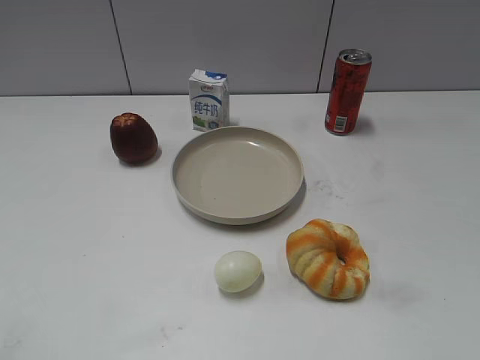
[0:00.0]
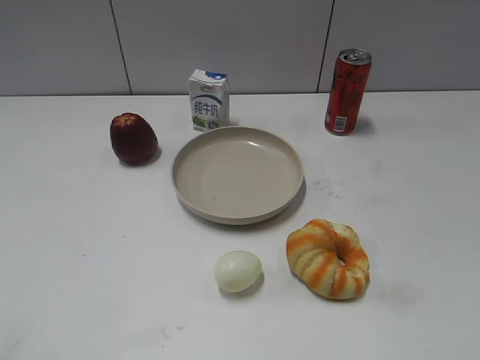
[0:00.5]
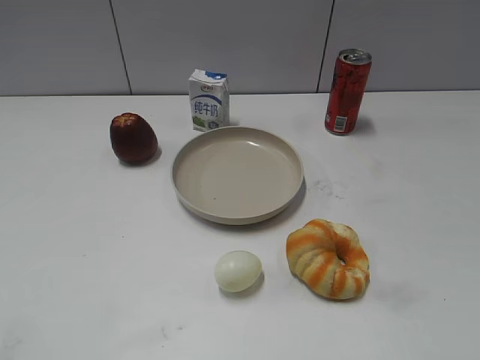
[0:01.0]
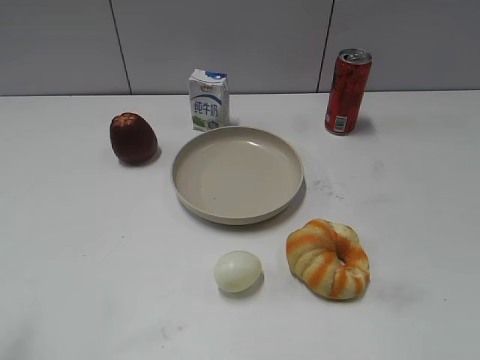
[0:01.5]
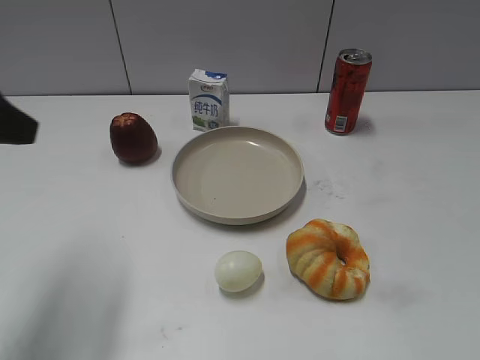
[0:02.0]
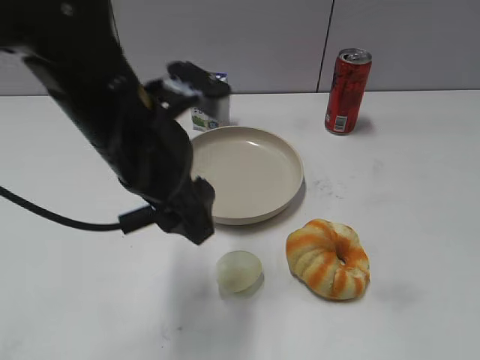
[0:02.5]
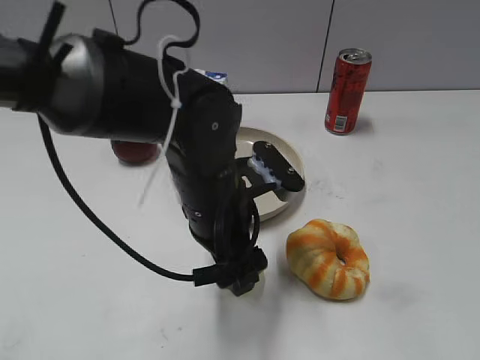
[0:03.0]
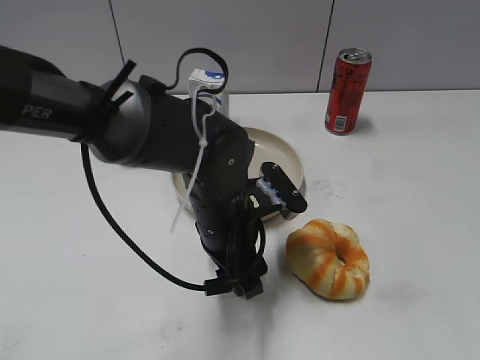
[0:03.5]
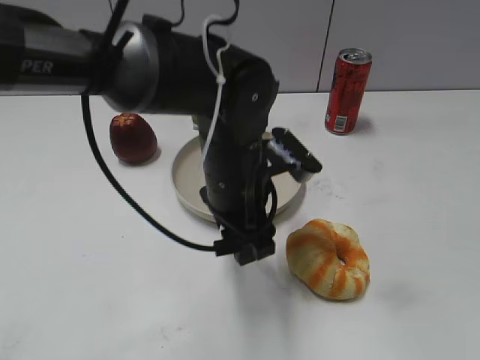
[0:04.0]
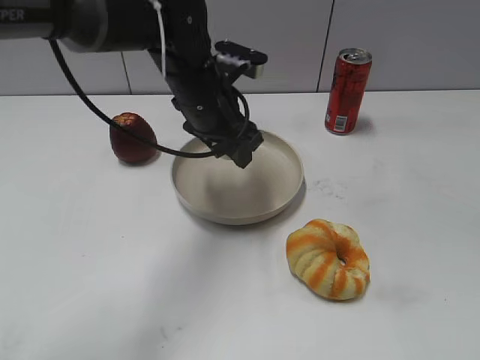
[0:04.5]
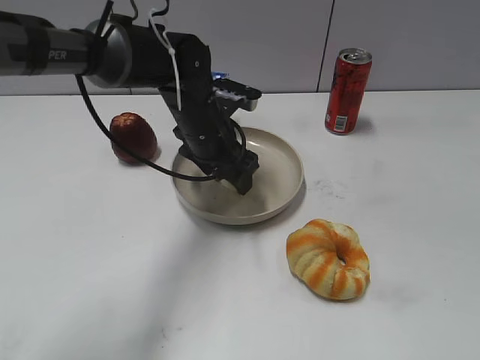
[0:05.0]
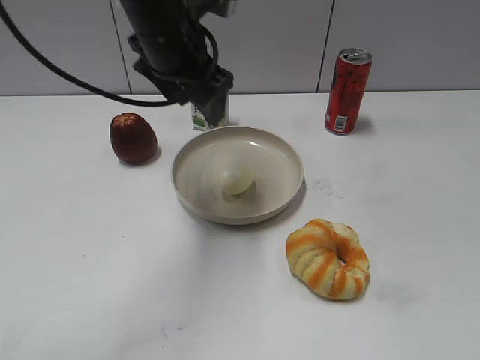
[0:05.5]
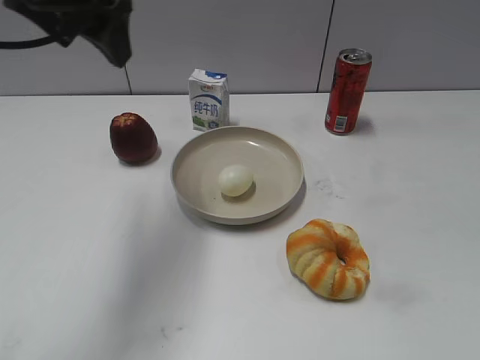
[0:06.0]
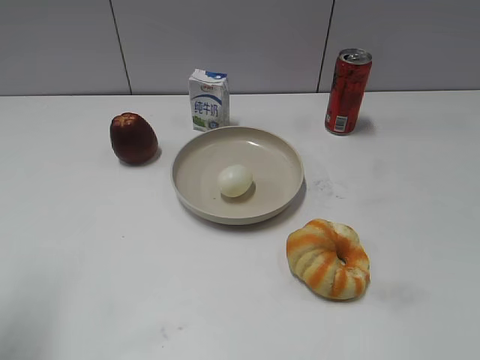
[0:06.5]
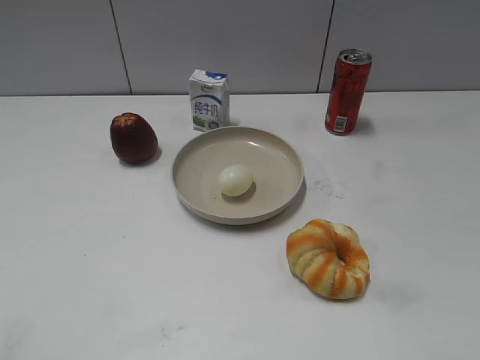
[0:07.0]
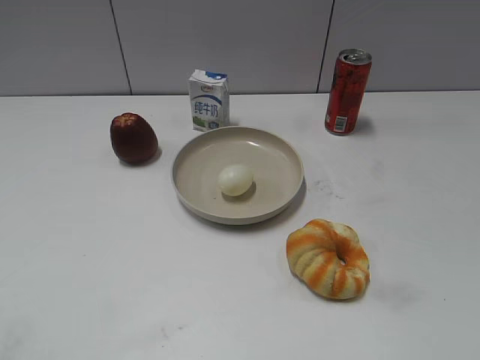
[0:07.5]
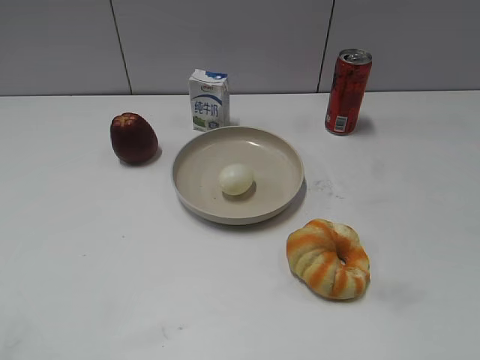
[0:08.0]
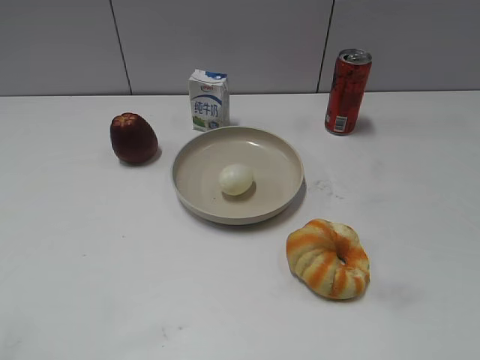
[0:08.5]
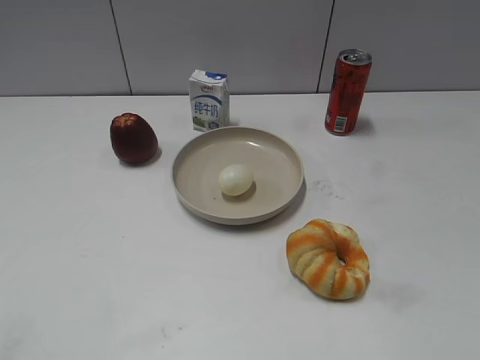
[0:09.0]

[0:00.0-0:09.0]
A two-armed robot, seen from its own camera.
0:02.0 to 0:04.5: The left gripper is displaced to the right and forward by some 30 cm, and closes up.
0:04.5 to 0:07.0: The left gripper is displaced to the left and backward by approximately 40 cm, and opens up.

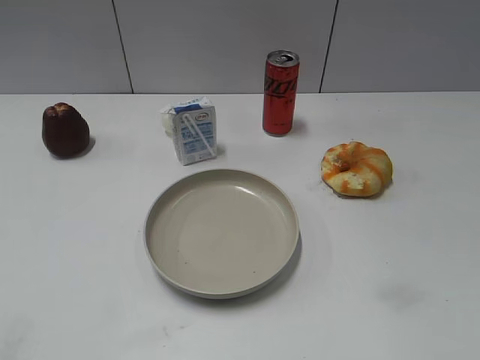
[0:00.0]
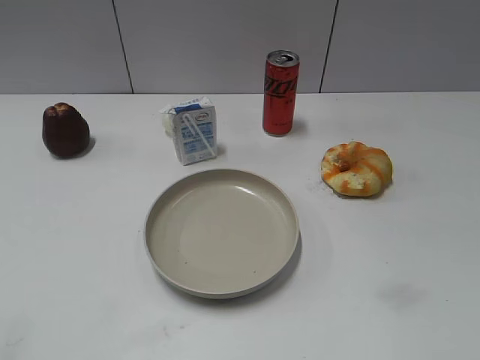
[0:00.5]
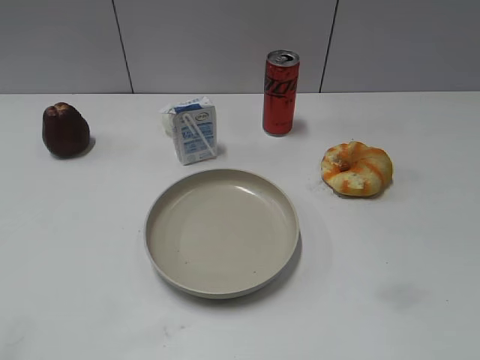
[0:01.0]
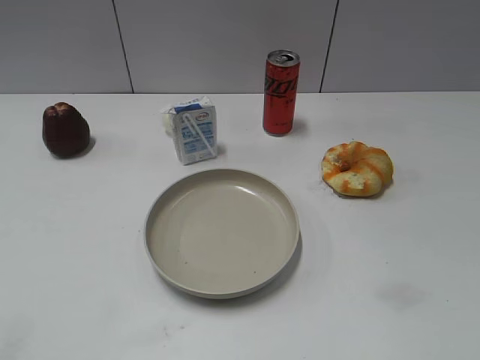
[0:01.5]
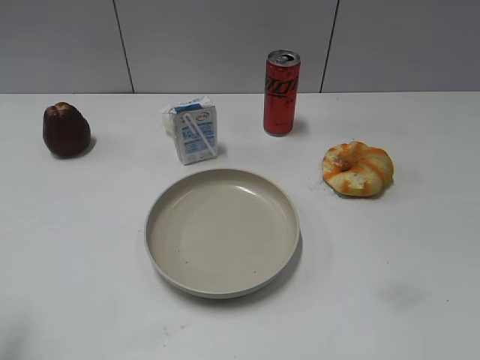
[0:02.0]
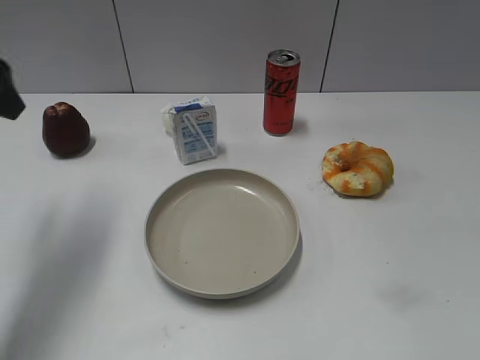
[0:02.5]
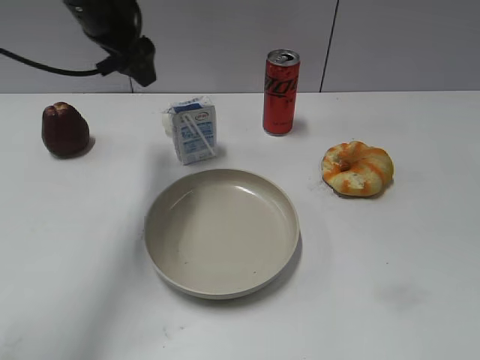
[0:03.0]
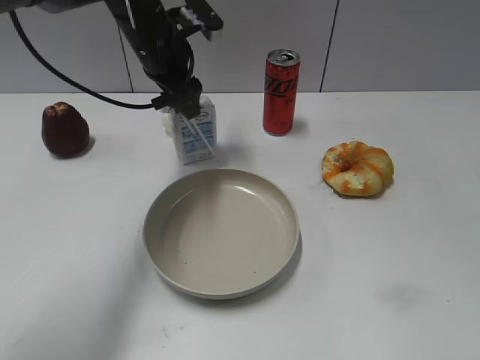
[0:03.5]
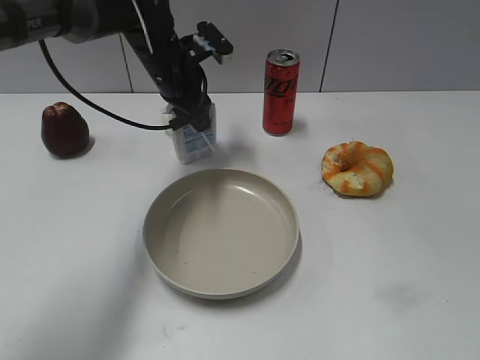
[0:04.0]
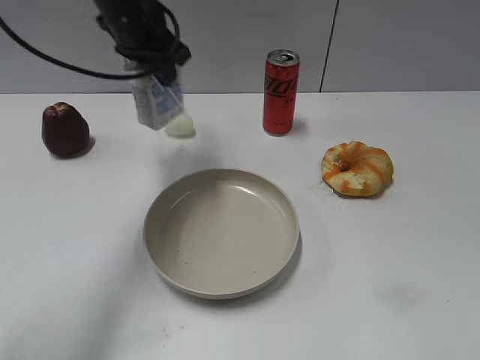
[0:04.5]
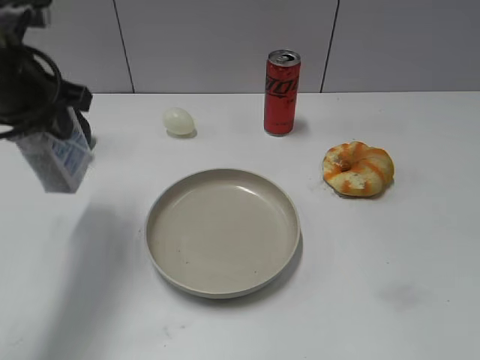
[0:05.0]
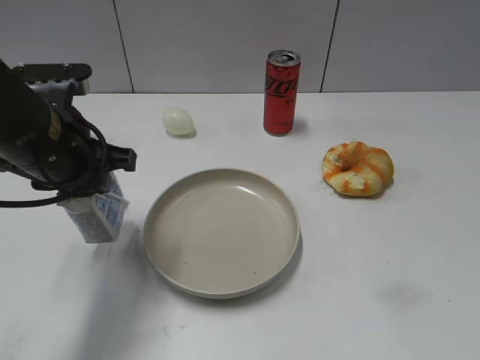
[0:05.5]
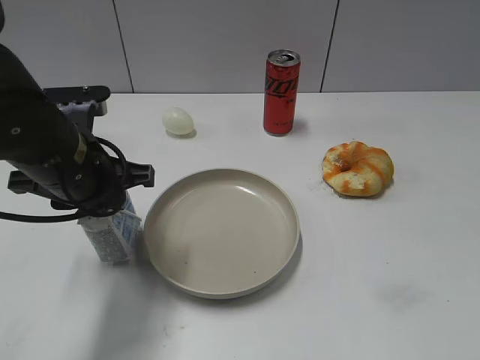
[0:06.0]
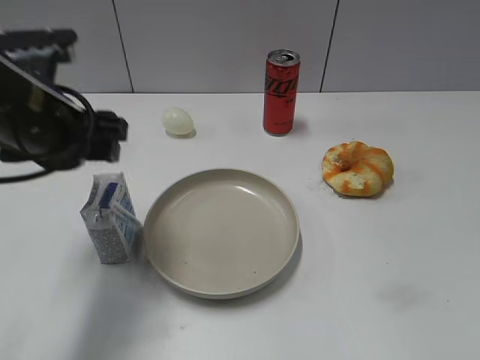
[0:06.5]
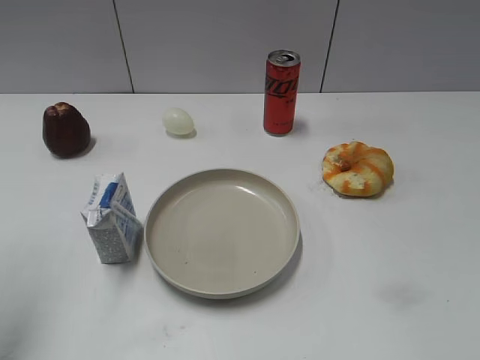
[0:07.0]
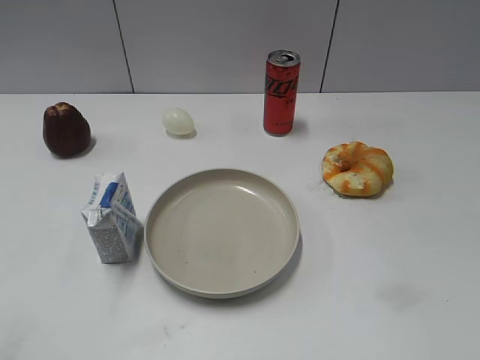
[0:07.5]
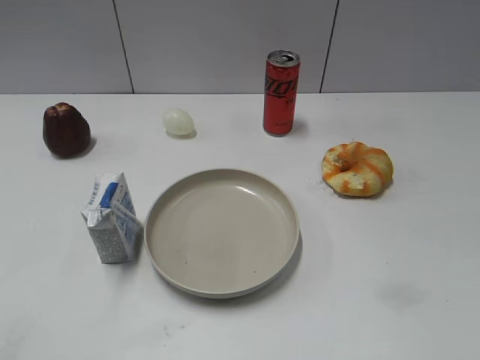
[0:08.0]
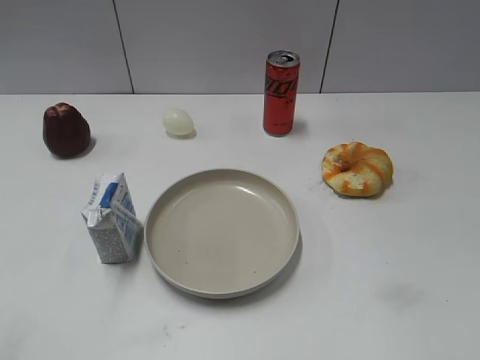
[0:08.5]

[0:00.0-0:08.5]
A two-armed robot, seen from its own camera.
Step, 0:00.0 to 0:04.0: Grasp the milk with left gripper.
Step, 0:04.5 to 0:06.0: Place the milk on the table with left gripper.
0:02.0 to 0:04.0: The left gripper goes roughly 40 cm forward and to the right, and closes up.
0:04.0 to 0:06.5: The left gripper travels backward and to the left by roughly 20 cm, and opens up.
0:06.5 to 0:08.5: The left gripper heads backward and to the left, covering some 30 cm.
